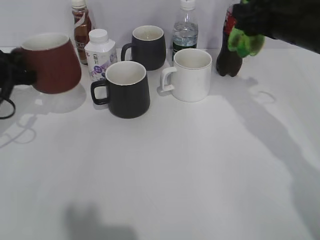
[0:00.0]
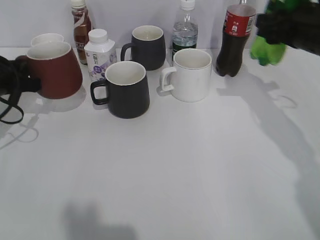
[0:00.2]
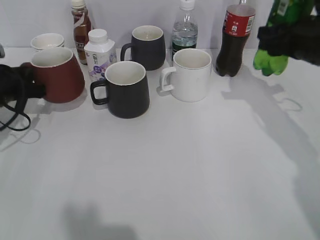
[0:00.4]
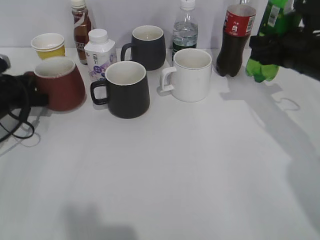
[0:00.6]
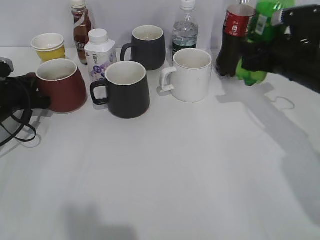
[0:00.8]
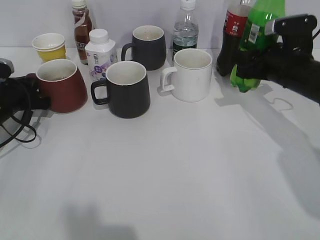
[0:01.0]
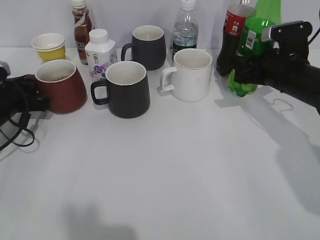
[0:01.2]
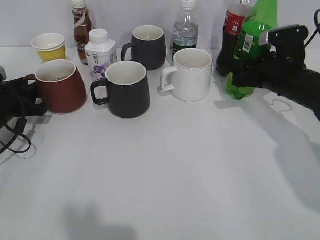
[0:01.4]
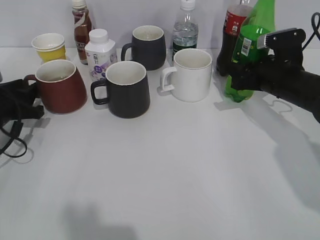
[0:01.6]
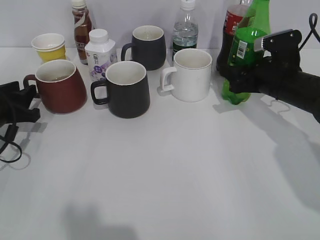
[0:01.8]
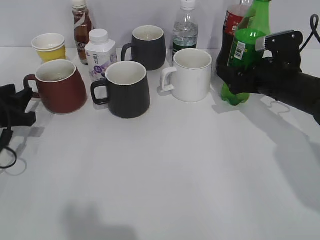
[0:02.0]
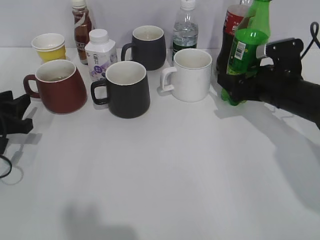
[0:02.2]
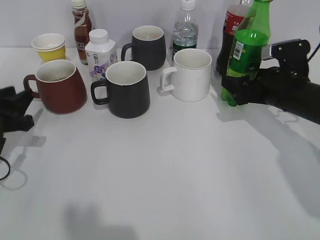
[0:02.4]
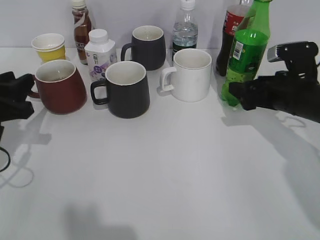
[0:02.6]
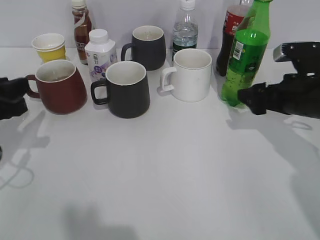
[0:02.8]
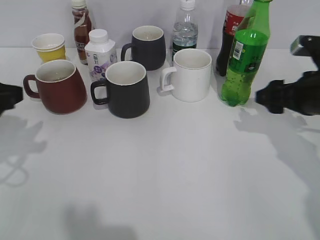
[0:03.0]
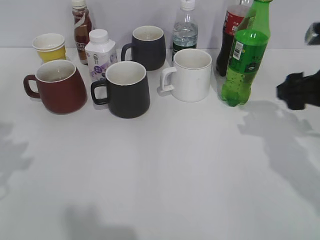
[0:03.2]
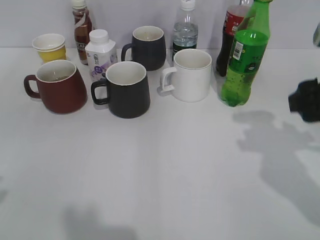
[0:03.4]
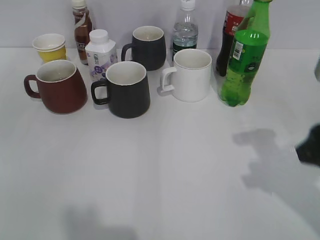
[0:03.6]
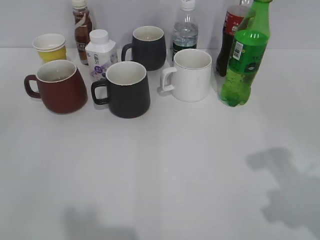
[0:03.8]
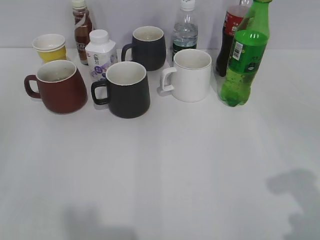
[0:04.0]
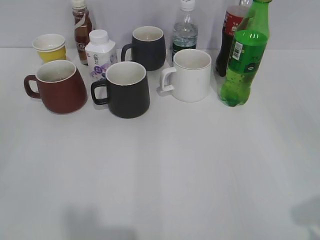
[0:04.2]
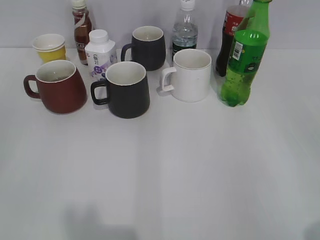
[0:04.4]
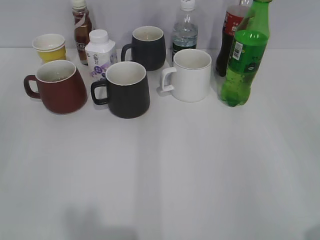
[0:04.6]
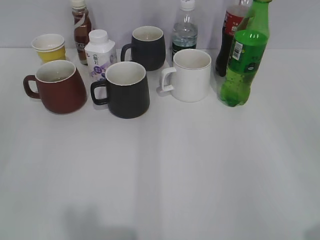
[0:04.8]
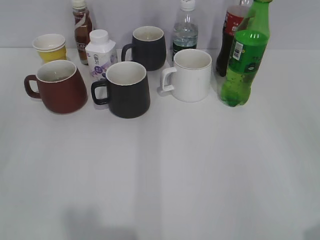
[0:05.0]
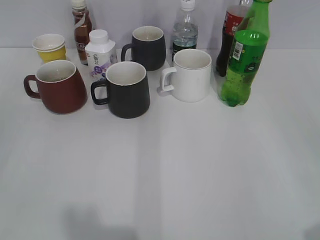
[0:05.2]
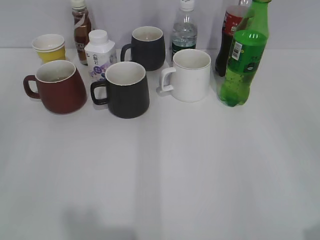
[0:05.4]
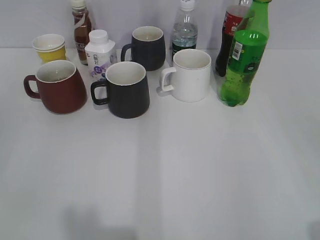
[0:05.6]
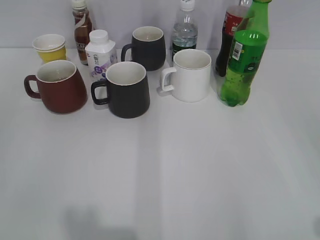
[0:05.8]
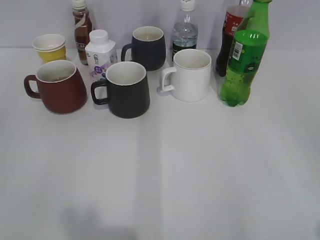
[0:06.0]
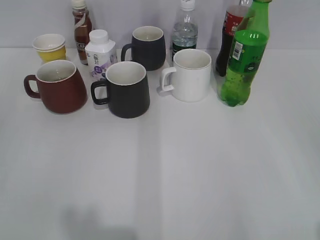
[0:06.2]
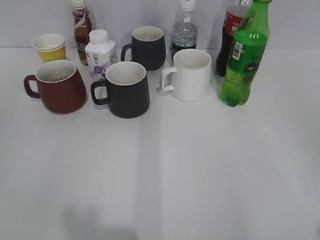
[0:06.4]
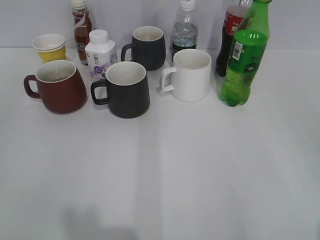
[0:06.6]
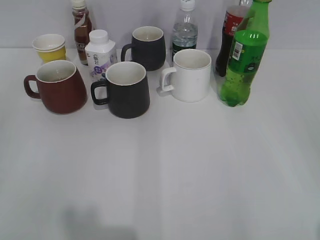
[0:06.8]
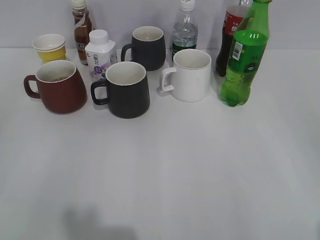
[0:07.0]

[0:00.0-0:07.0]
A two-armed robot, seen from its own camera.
Step, 0:00.0 to 0:02.6: Place the sprite bottle on the table with right gripper.
0:00.0 to 0:01.4: Both grippers travel together downward, roughly 10 cm. The left gripper opens.
0:01.4 to 0:02.8: The left gripper shifts some 15 cm backward and upward; the right gripper heads backward, covering about 5 cm, and opens.
0:02.8 to 0:04.2: The left gripper heads backward, covering roughly 20 cm; the right gripper heads backward and upward, covering approximately 30 cm, and closes.
